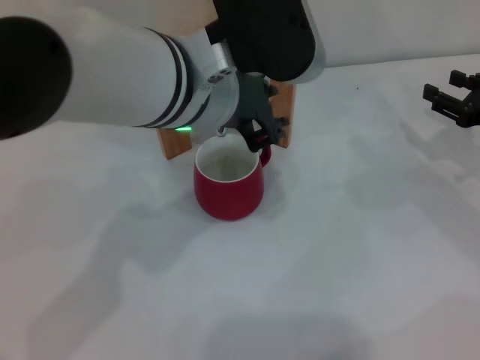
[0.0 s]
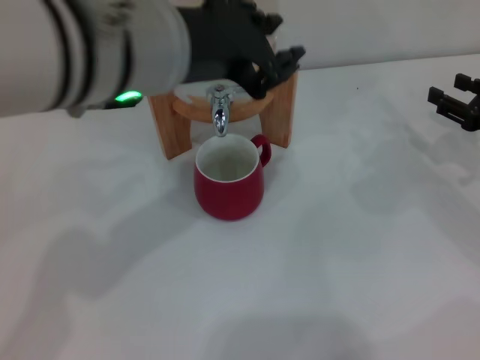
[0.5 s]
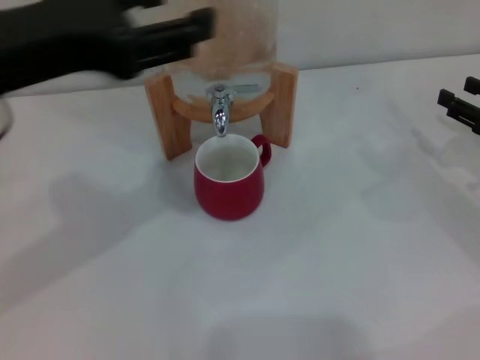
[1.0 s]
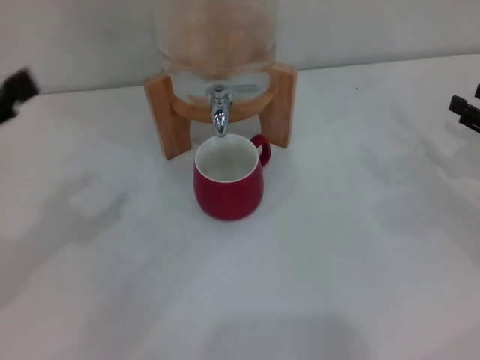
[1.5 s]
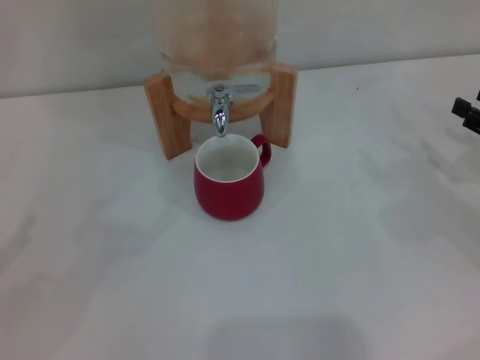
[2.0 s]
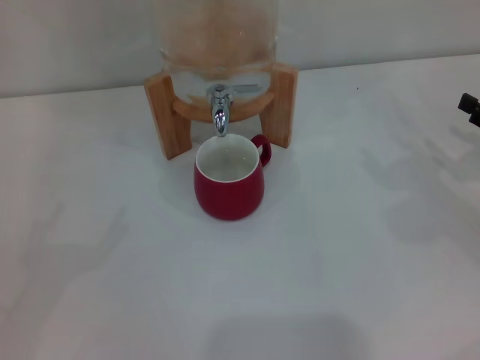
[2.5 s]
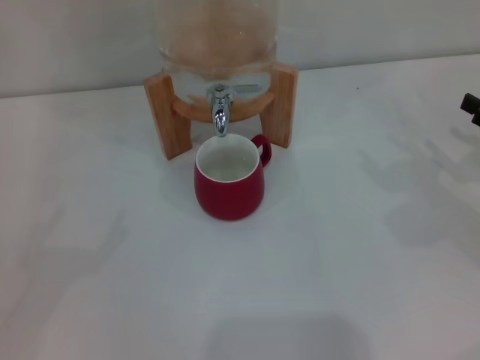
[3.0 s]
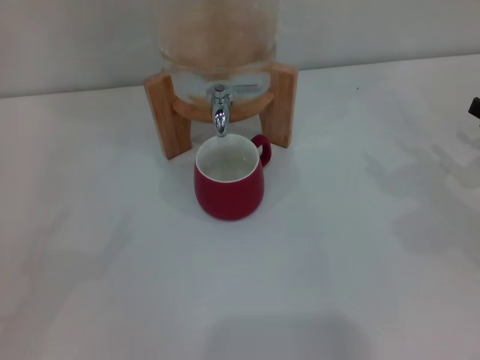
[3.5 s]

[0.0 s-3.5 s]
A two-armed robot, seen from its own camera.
Task of the whole recording: the right gripper pick up the red cup and place it horizontally under the faucet, the left gripper turn on the faucet to fill the cup, and then turn off the faucet.
0.0 to 2.0 s: The right gripper changes place by roughly 5 cm; the left gripper goes about 35 cm to the left, and opens.
